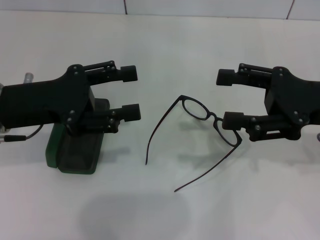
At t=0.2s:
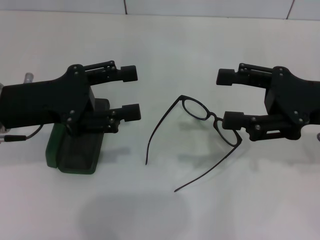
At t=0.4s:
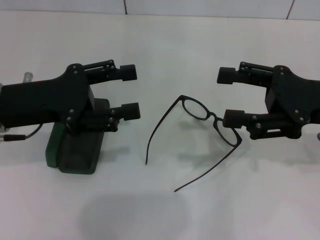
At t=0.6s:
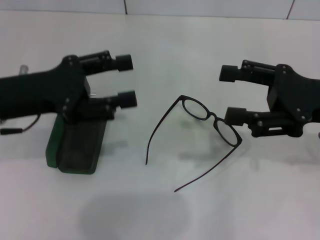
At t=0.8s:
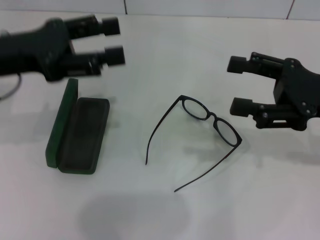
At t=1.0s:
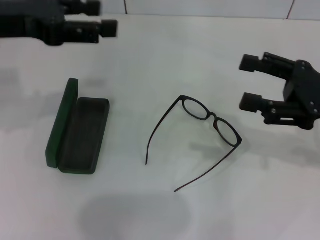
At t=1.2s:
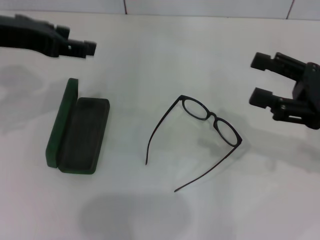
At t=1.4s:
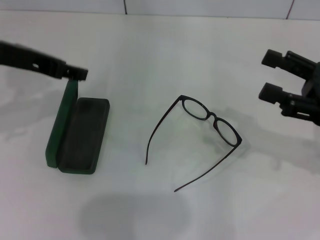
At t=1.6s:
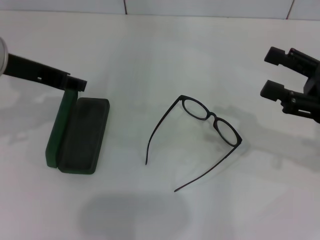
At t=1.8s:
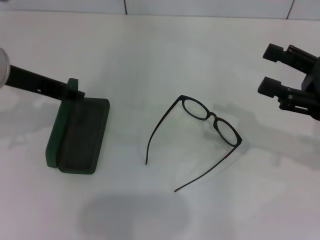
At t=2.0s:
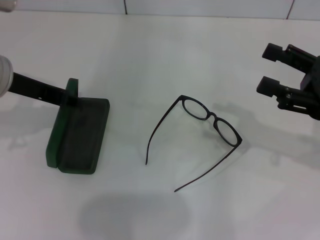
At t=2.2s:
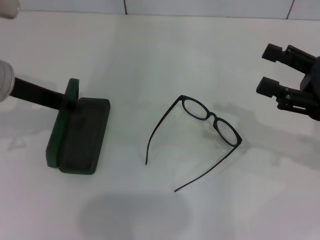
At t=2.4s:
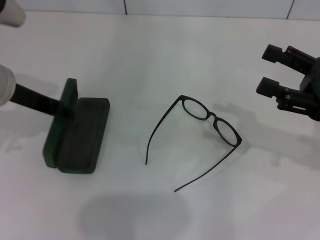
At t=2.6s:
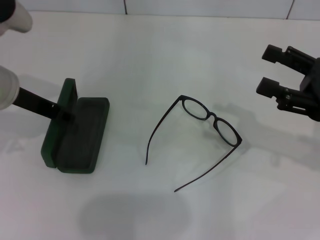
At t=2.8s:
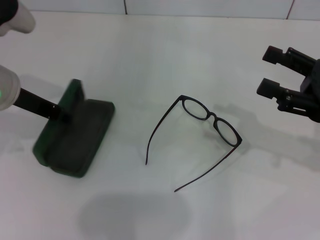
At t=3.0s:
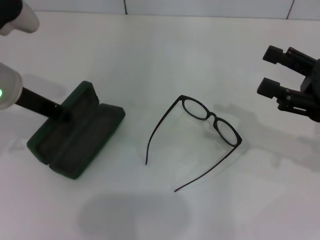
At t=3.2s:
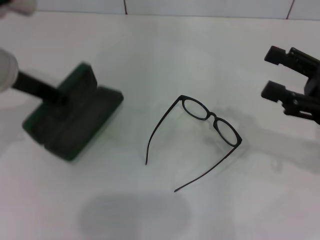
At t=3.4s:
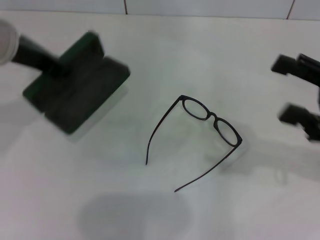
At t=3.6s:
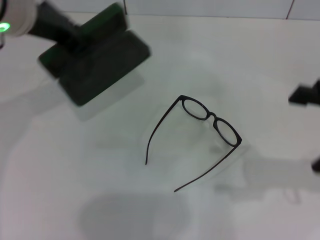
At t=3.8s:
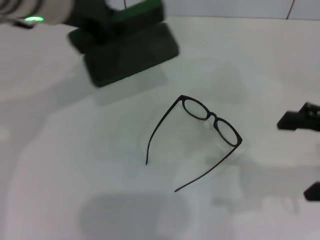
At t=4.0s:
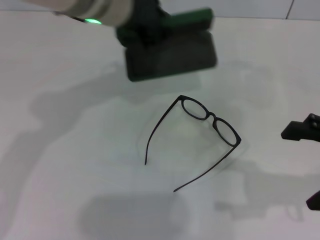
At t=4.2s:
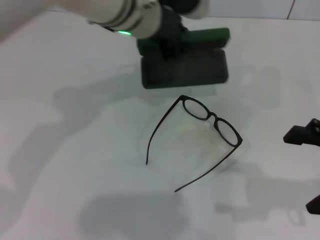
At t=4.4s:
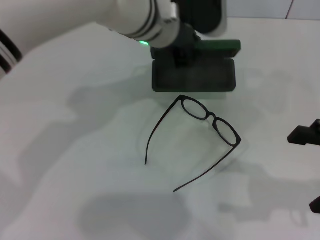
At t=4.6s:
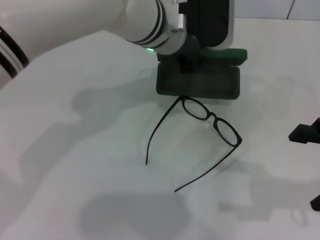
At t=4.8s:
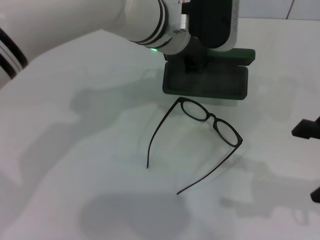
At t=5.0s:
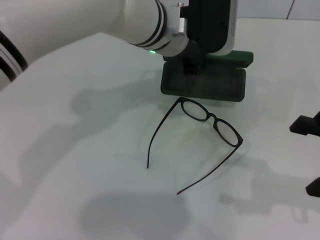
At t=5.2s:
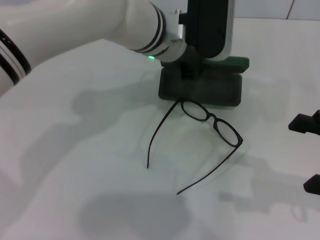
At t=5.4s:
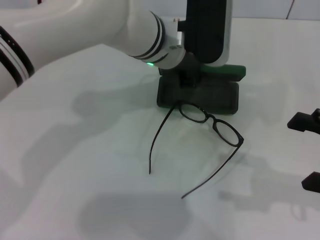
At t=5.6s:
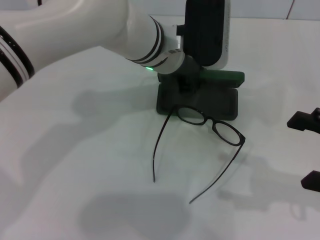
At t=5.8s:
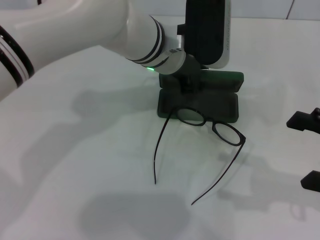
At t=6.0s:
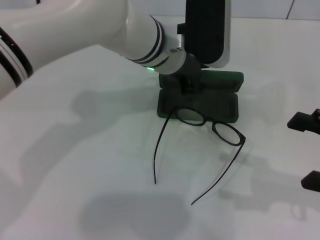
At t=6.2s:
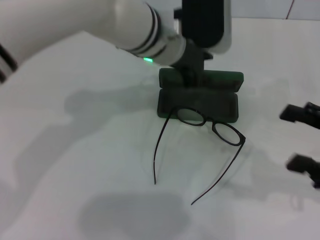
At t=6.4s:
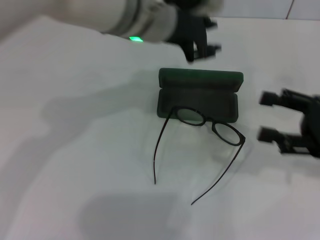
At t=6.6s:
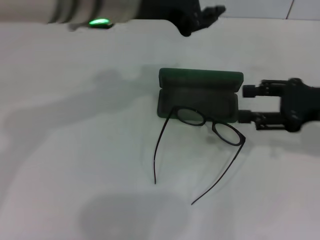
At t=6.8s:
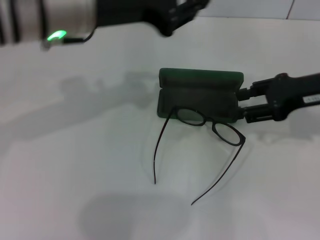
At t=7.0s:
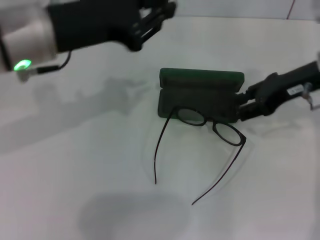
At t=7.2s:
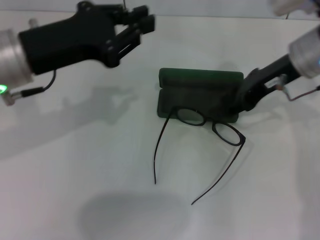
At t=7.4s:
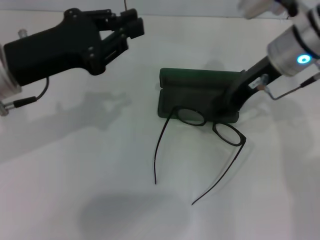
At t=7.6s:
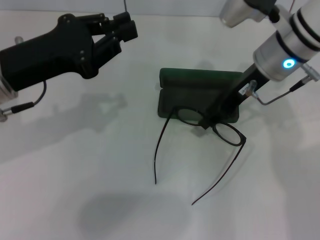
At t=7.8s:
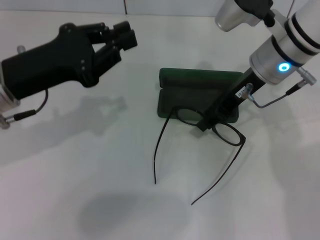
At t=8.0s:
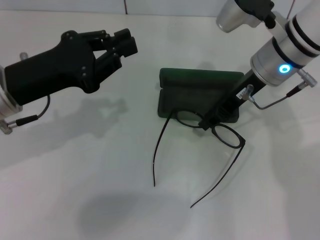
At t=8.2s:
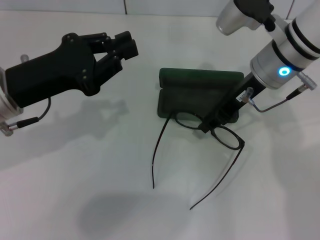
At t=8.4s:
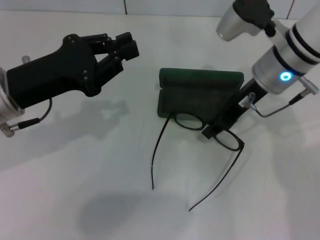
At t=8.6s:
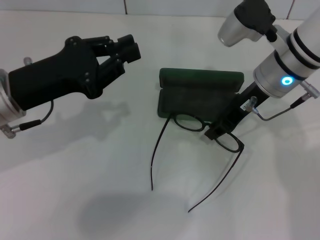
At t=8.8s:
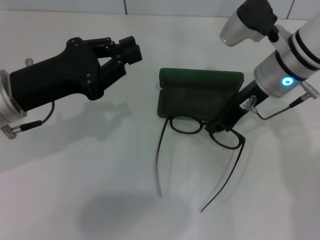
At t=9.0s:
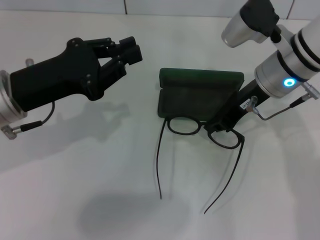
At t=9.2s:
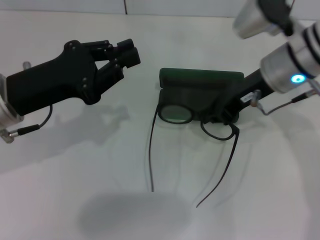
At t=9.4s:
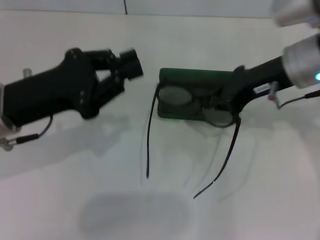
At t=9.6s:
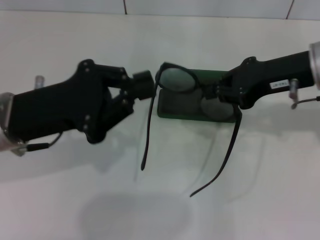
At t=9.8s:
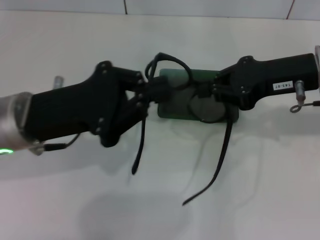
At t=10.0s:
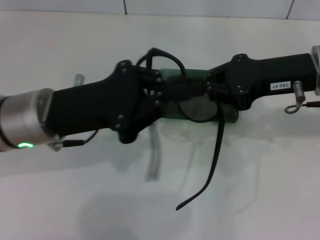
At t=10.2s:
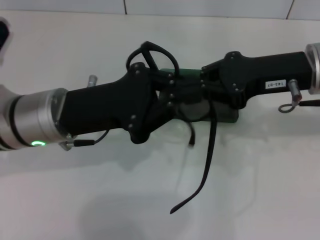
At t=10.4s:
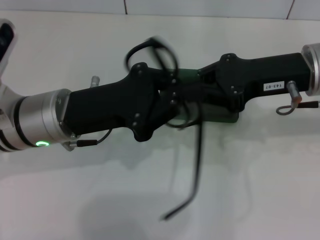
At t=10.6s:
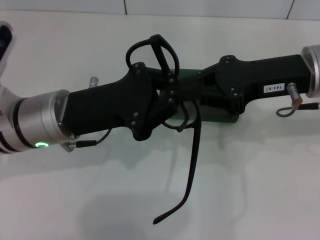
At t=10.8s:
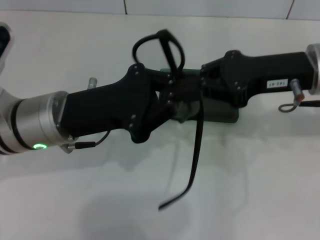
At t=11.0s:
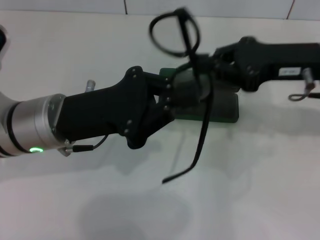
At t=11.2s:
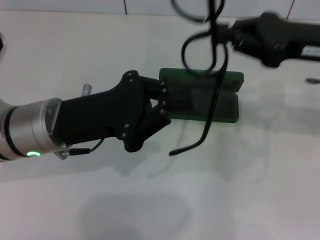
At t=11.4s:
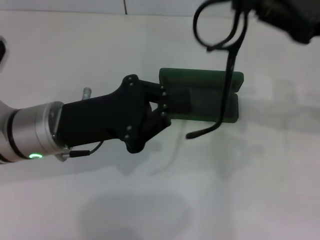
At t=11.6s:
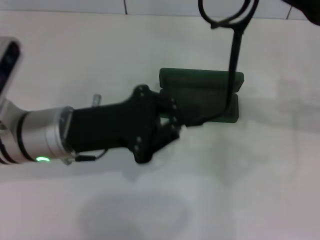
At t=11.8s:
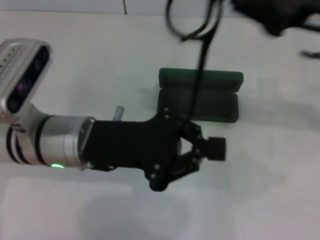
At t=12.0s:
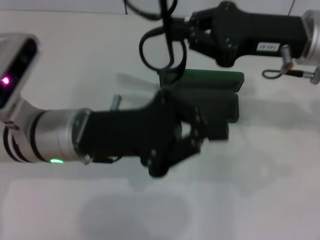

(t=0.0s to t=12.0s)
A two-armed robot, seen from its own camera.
Step, t=0.0s - t=2.8s: Grab the glasses case with your left hand.
Step, t=3.0s - t=5.8s: Place the glasses case in the center of the table with your left hand.
Step, t=6.0s - t=8.6s: Grab the eyeglass frame with your right hand.
t=0.0s - t=1.6s: The left gripper moves upward, approximately 5 cm. The right gripper moves approximately 5 cm.
t=1.6s - t=3.0s: The left gripper closes up.
t=3.0s - t=4.4s: The left gripper heads to the right, covering roughly 20 cm. The right gripper goes roughly 5 cm backward.
t=6.0s - t=7.6s: The right gripper moves forward and to the left, some 25 cm. Meanwhile the left gripper shifts approximately 25 cm to the left and backward, and closes its fingers.
t=7.6s - t=9.0s: The right gripper closes its fingers.
t=9.0s - t=10.4s: The right gripper shifts roughly 5 cm backward, while the left gripper goes approximately 5 cm to the right.

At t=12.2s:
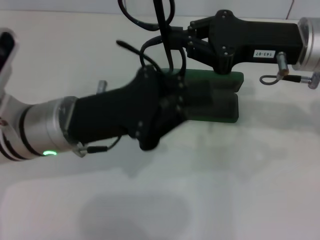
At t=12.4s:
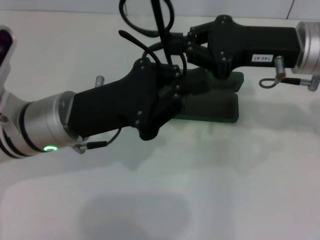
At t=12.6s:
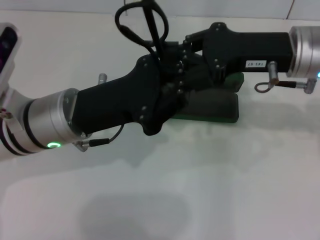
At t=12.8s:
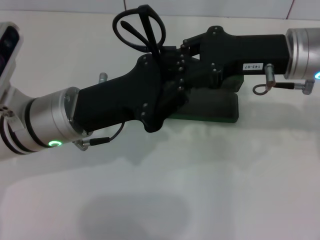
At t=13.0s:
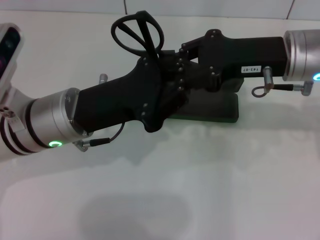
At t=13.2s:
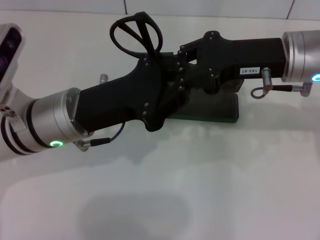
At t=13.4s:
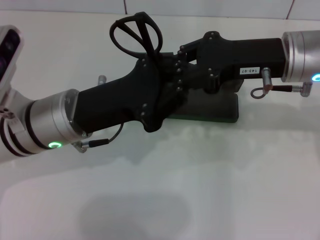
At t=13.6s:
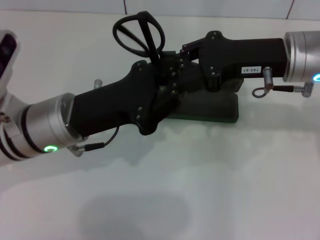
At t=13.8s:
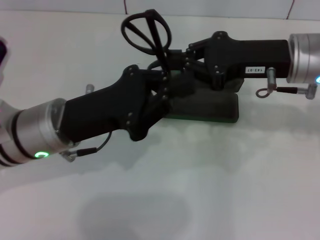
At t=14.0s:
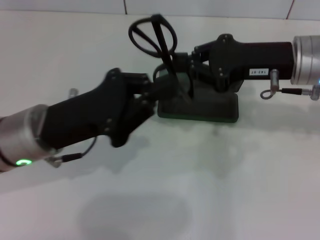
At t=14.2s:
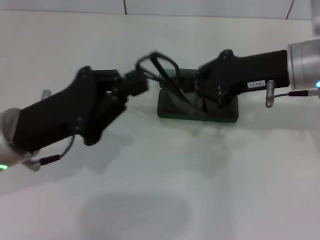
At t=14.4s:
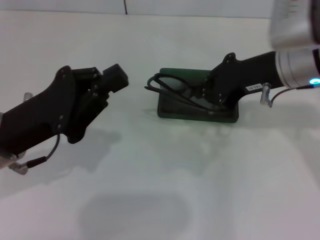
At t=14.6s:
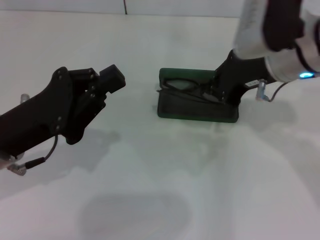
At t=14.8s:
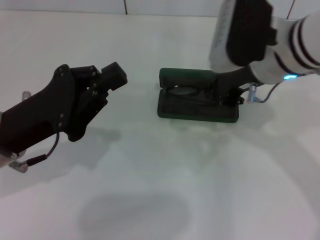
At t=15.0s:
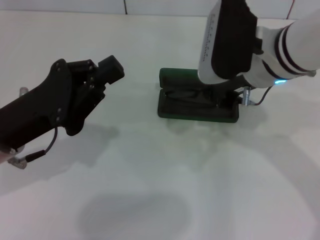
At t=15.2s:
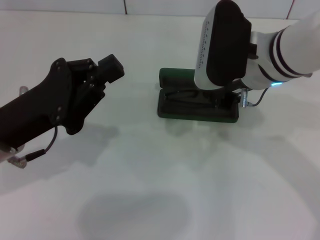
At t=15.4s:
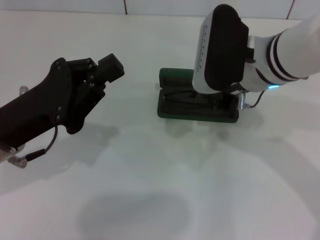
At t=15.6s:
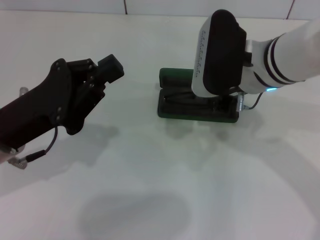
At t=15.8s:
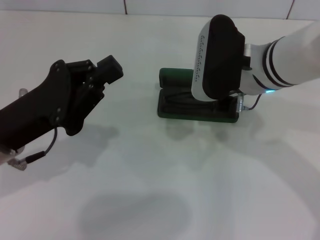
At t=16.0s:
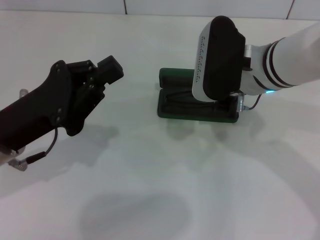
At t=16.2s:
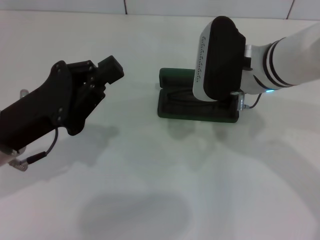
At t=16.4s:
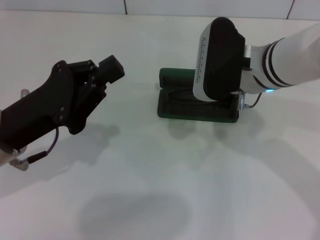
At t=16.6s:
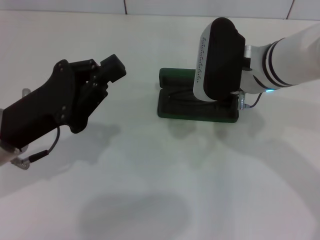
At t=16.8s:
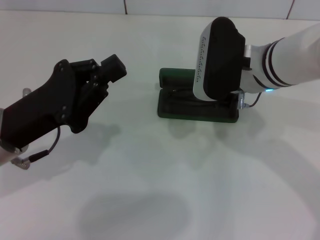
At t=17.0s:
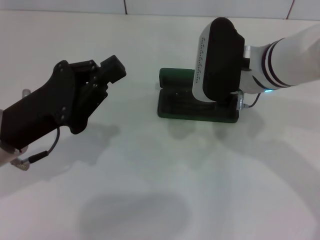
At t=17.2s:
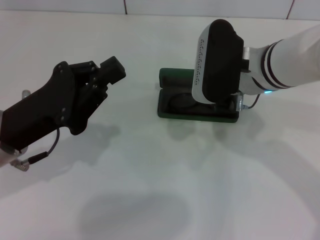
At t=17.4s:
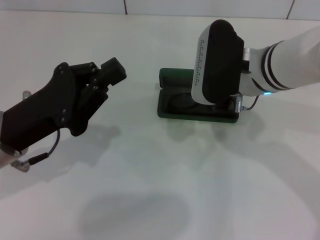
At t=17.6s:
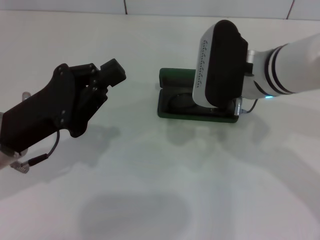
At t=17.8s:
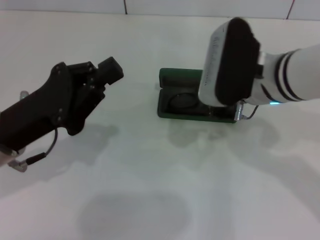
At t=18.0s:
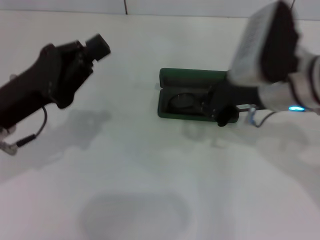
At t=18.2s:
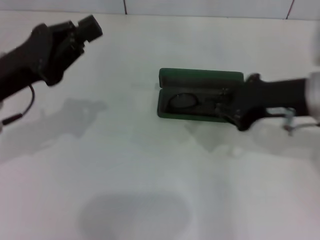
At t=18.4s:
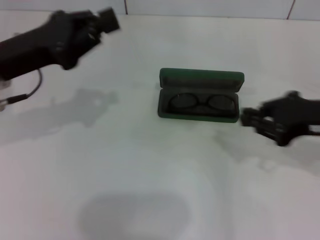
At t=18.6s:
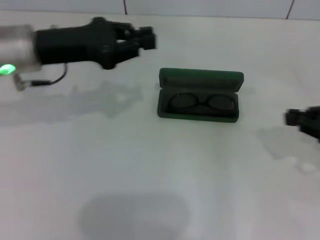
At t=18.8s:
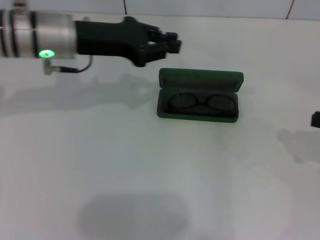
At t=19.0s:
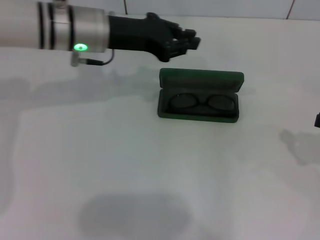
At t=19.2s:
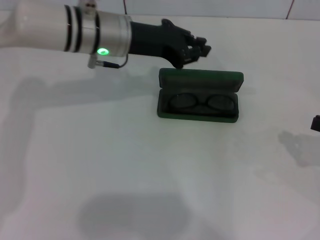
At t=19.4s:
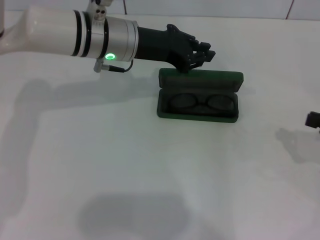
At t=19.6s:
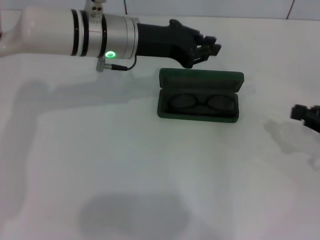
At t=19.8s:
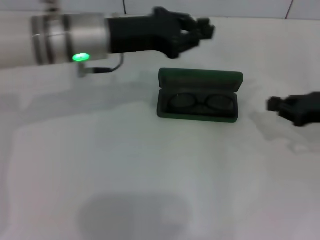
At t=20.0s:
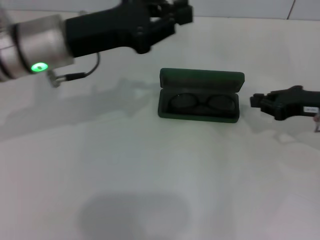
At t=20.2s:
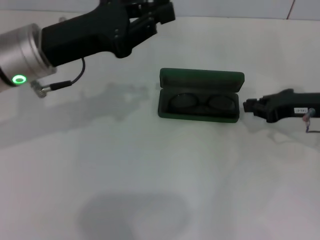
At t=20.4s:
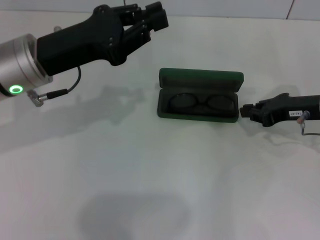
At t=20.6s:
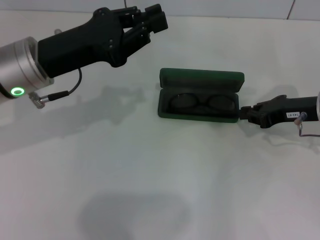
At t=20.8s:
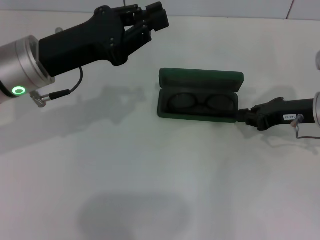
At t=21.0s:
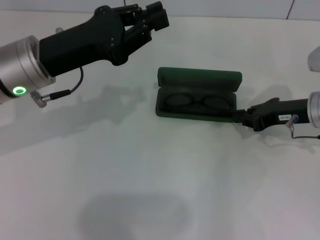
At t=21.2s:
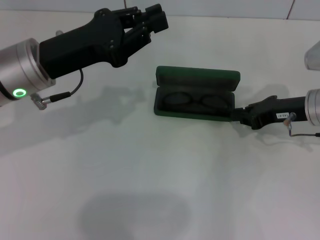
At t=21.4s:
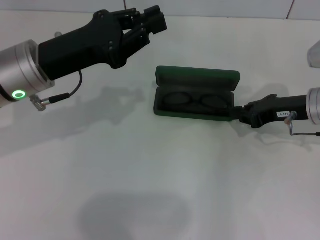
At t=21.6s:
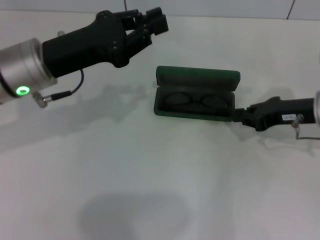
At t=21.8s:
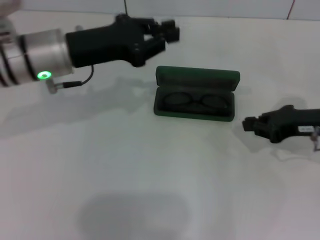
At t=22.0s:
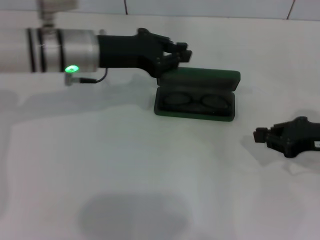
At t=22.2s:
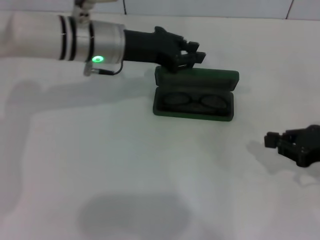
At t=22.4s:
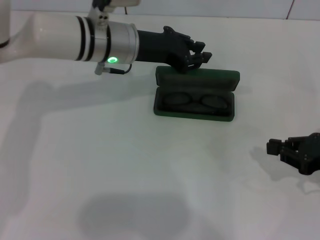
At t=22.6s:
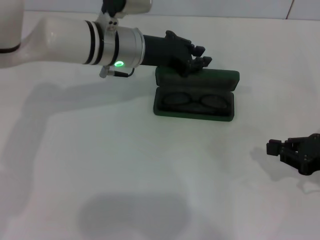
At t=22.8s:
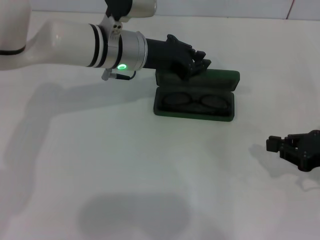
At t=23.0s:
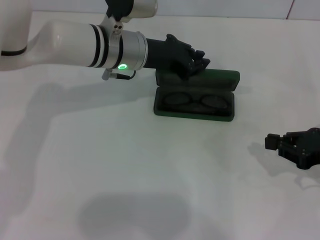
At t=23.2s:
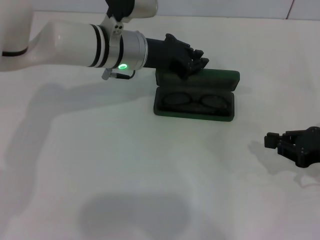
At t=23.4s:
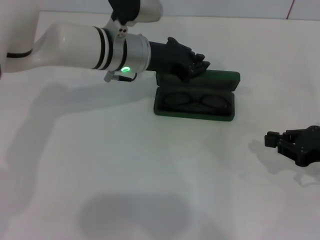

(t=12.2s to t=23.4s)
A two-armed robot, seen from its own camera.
Step, t=12.8s - t=17.4s: Put the glasses into the case with your right hand.
t=12.2s - t=13.8s: The grippers move only a little.
t=13.8s - t=15.4s: The grippers both shift to the left by about 5 cm.
t=15.4s - t=17.0s: There are only small adjustments of the grippers.
t=17.0s - t=18.6s: The right gripper goes about 25 cm to the right and backward. Meanwhile the left gripper moves forward and upward, approximately 15 cm.
t=18.6s - t=20.2s: The left gripper goes to the right and returns, about 10 cm each way, while the right gripper is displaced forward and downward by roughly 10 cm.
t=20.2s - t=21.8s: The grippers make only small movements.
t=21.8s - t=23.4s: The left gripper goes about 10 cm to the right and forward. Meanwhile the right gripper is displaced backward by about 5 cm.
